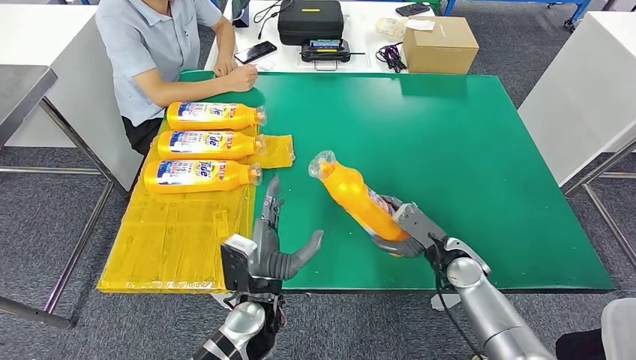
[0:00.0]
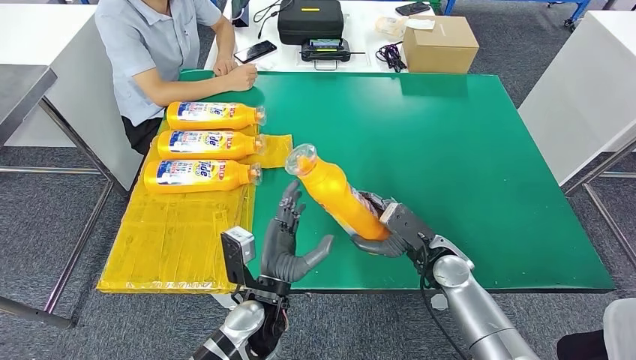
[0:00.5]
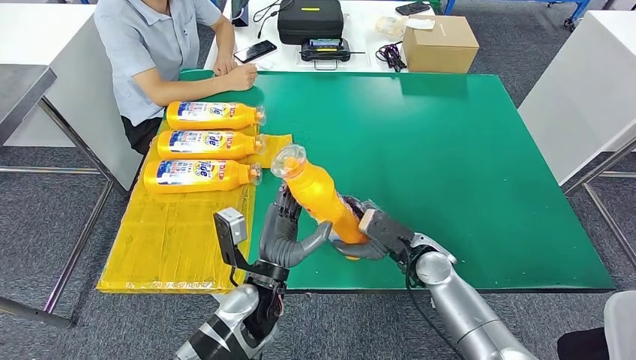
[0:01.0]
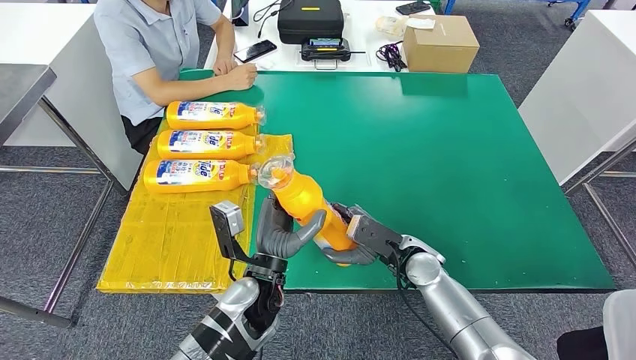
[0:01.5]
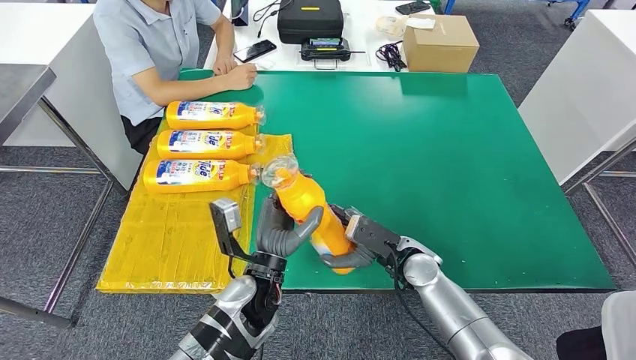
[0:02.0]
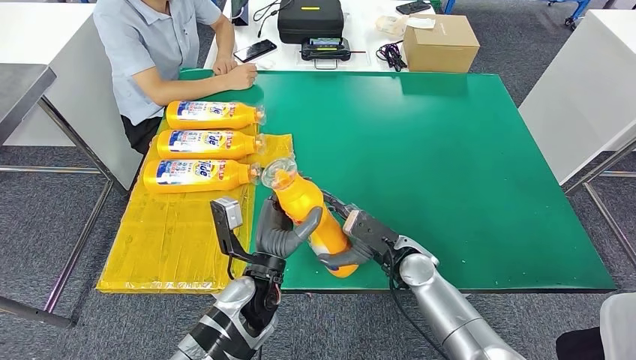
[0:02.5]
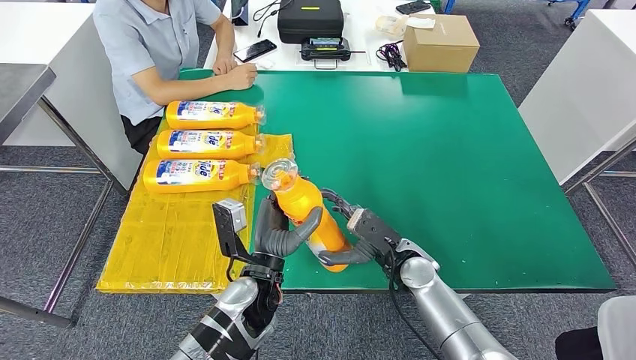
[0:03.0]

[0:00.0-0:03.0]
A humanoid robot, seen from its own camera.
Step, 0:00.0 to 0:02.0: Pick up the fast-moving consumer goods bottle from the table.
Step, 0:02.5 to 0:03.0: Flip the fast-moving consumer goods bottle to the front side.
0:00.0 to 0:01.5: The right hand heads to the left, covering about 10 cm.
0:01.5 to 0:03.0: The hands stay close to where they were, moving slightly.

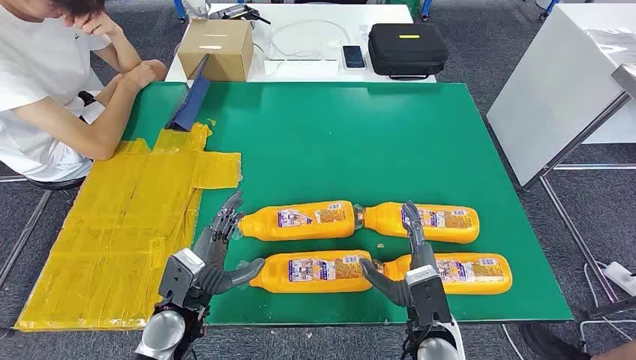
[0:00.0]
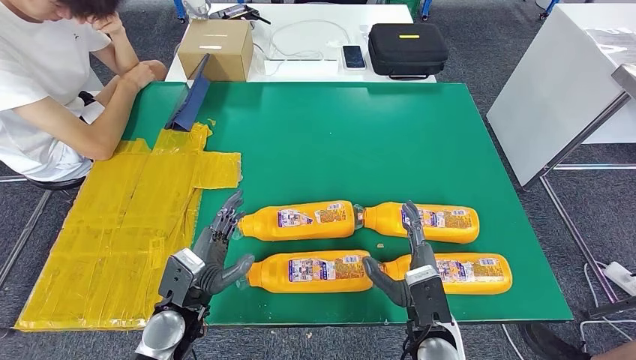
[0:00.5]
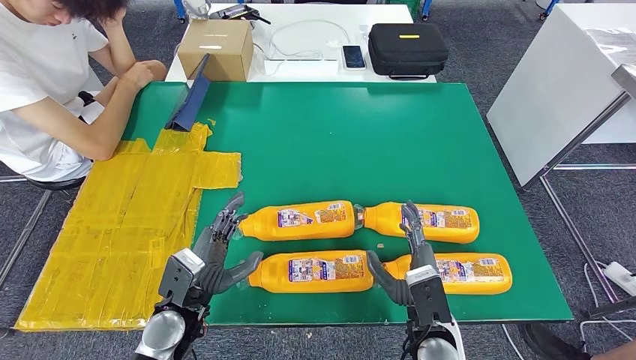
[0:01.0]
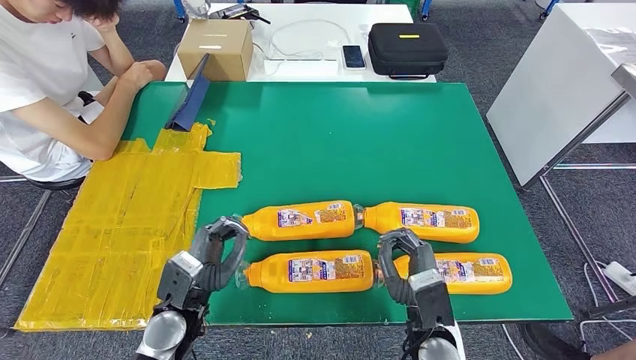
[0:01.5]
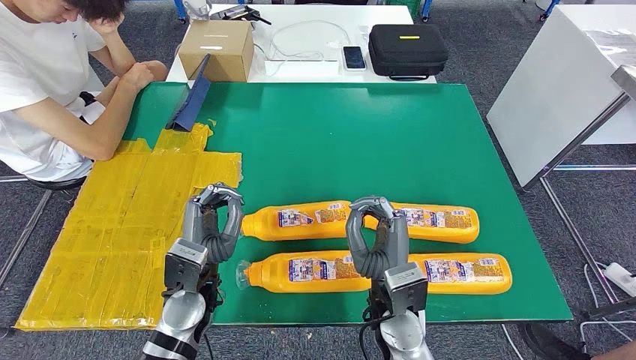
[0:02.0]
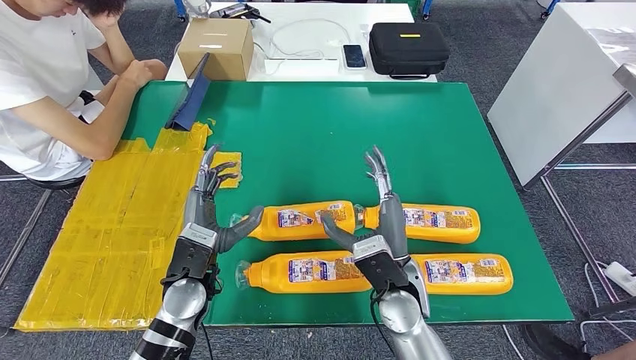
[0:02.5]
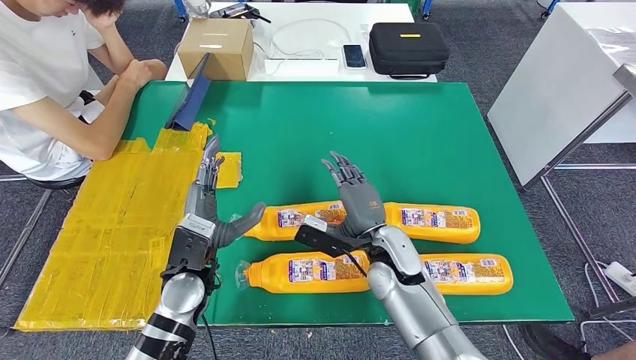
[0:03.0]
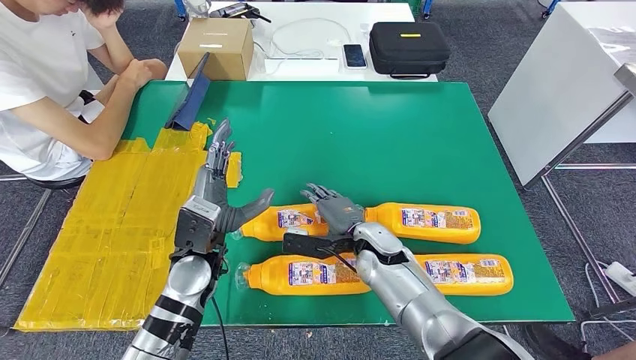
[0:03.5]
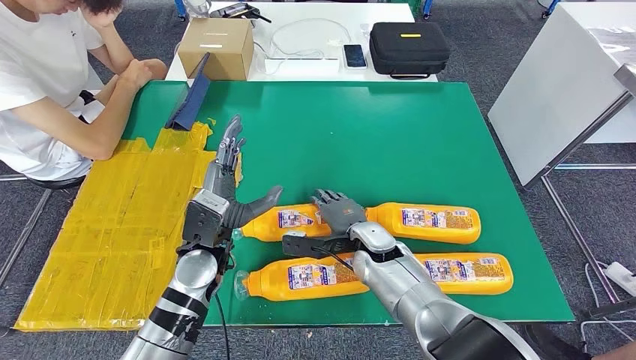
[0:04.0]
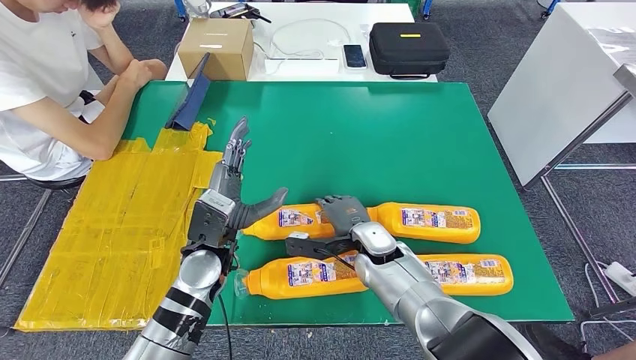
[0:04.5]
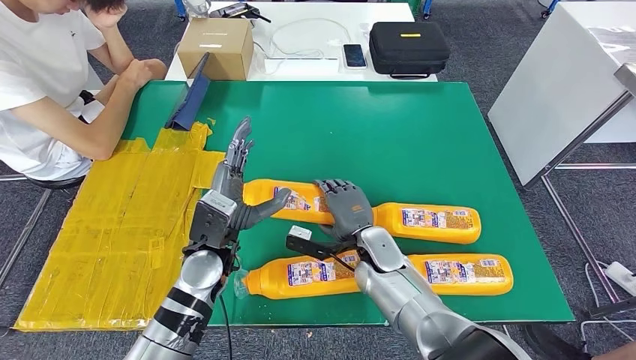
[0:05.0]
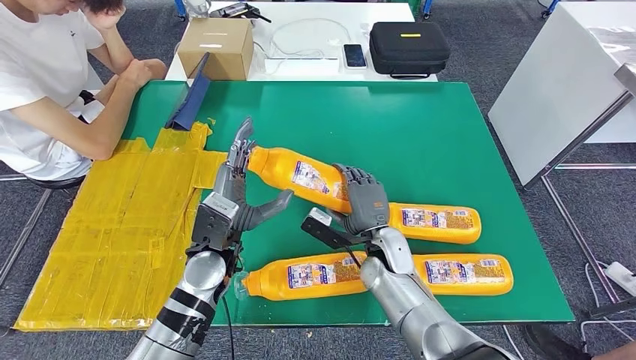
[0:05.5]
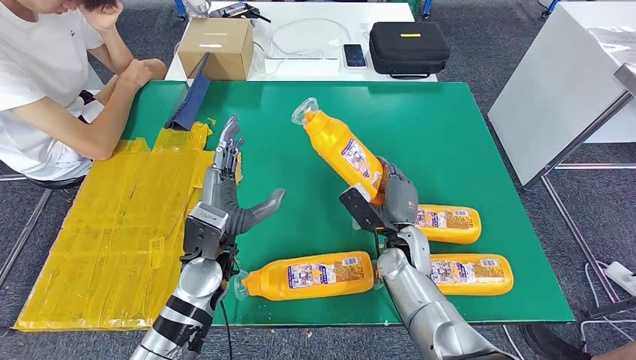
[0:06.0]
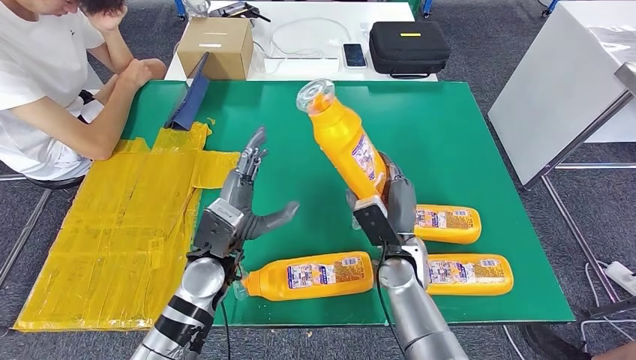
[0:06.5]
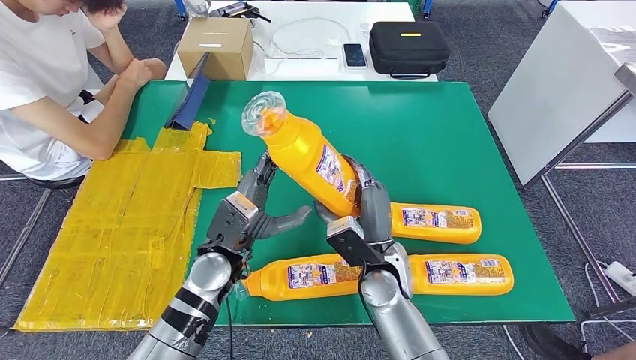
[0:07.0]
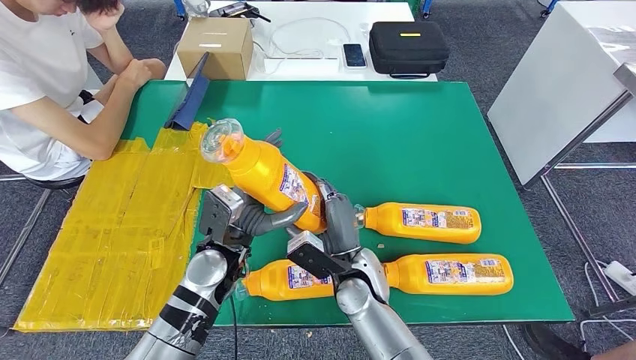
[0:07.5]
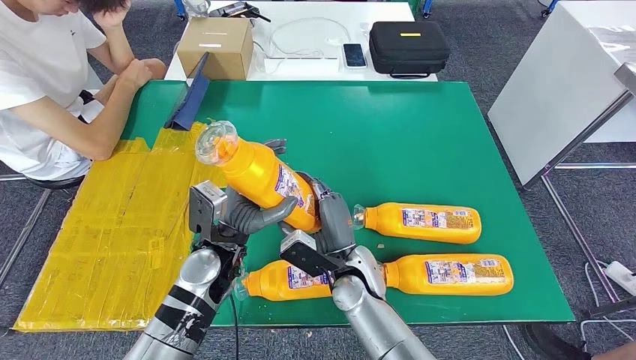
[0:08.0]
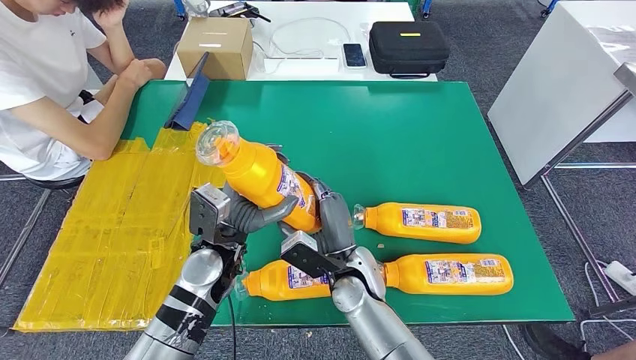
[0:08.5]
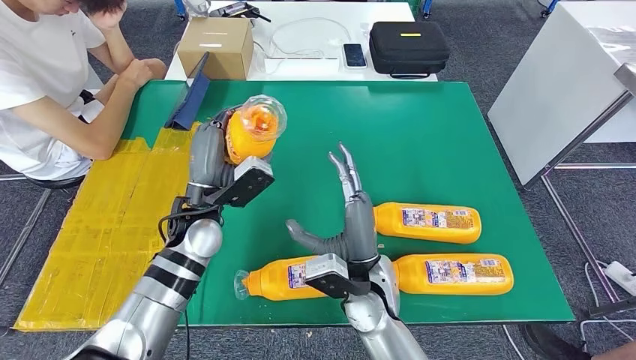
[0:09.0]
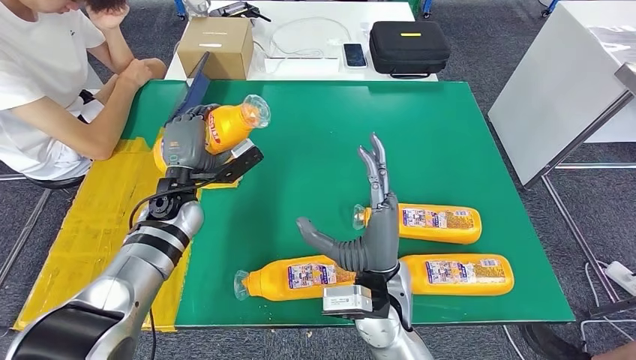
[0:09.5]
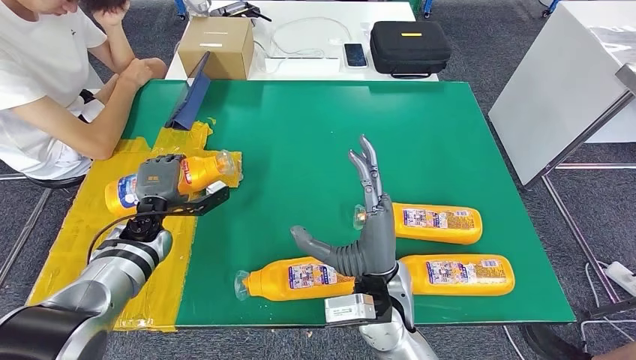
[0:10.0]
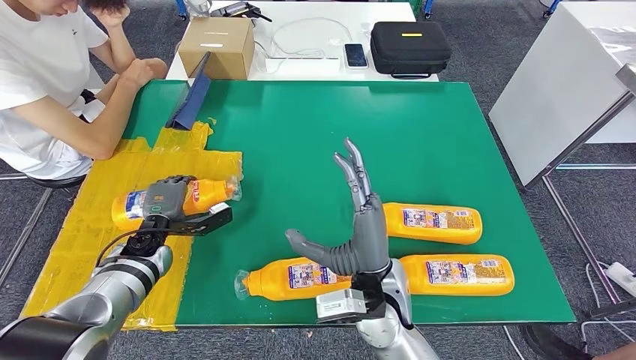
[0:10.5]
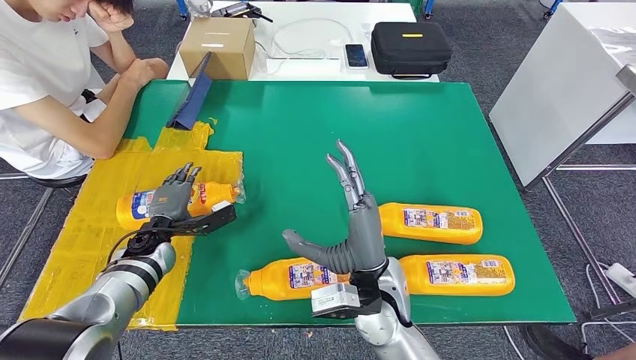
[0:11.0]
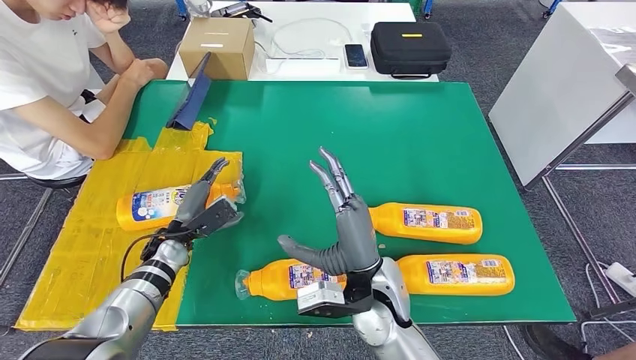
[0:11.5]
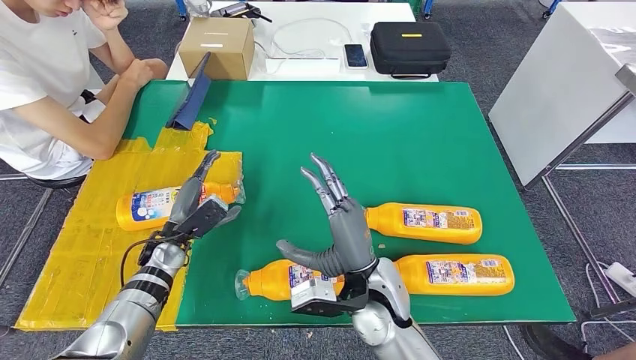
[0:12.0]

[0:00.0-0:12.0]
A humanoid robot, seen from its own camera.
Step, 0:00.0 to 0:07.0: Take the fast-moving consumer goods bottle from the table.
0:02.0 to 0:04.0: The right hand goes roughly 10 cm forward. The left hand moves about 5 cm.
0:04.0 to 0:06.0: The right hand is displaced to the right by roughly 5 cm.
0:06.0 to 0:08.0: The right hand moves to the left and backward, some 10 cm.
0:08.0 to 0:10.0: The left hand travels to the left and forward by roughly 20 cm, while the right hand travels upward and backward by some 10 cm.
0:10.0 to 0:12.0: The left hand ends up some 5 cm from where it was.

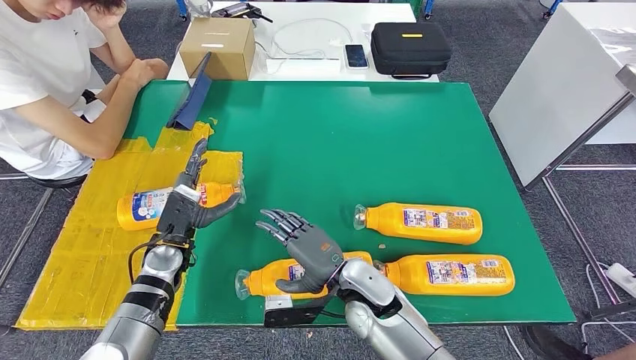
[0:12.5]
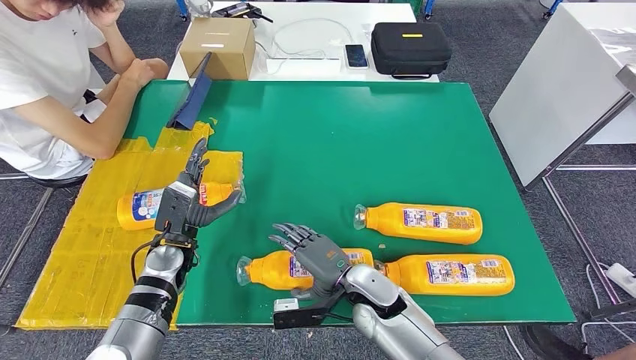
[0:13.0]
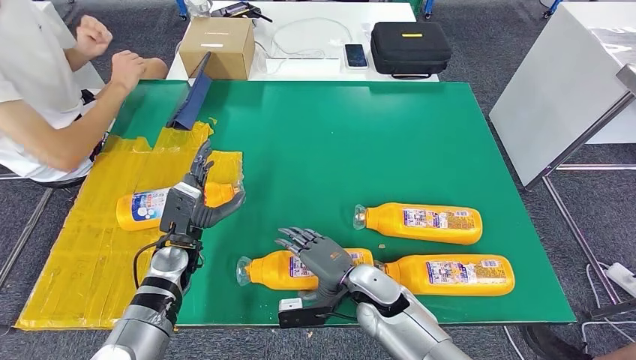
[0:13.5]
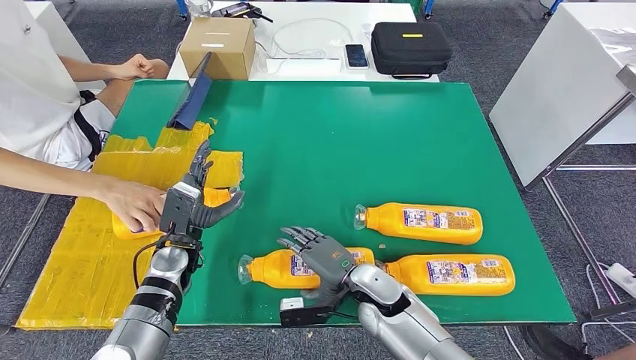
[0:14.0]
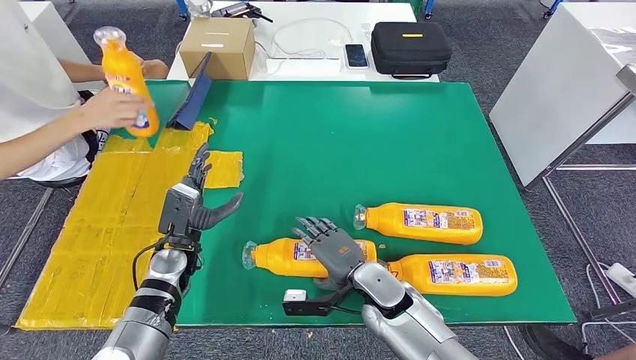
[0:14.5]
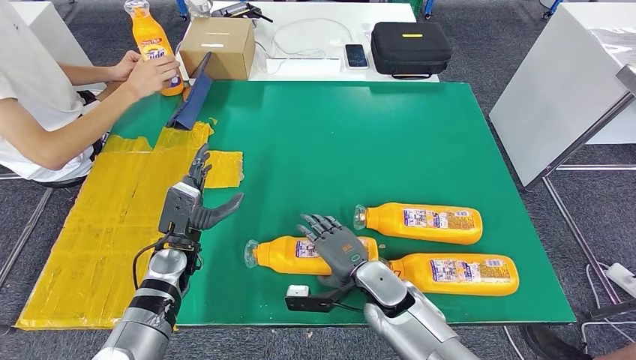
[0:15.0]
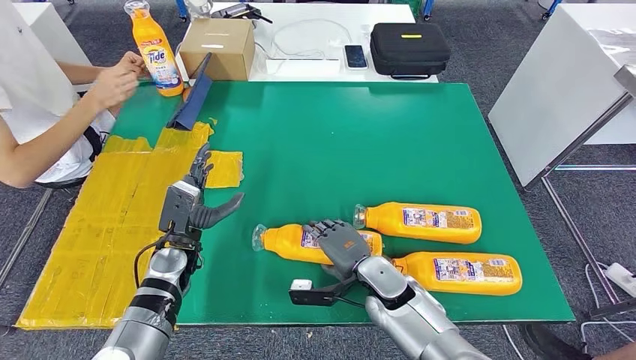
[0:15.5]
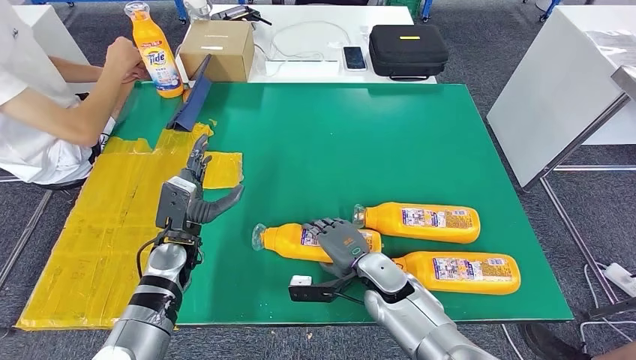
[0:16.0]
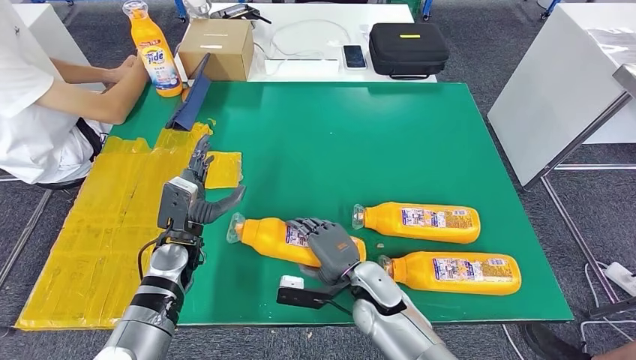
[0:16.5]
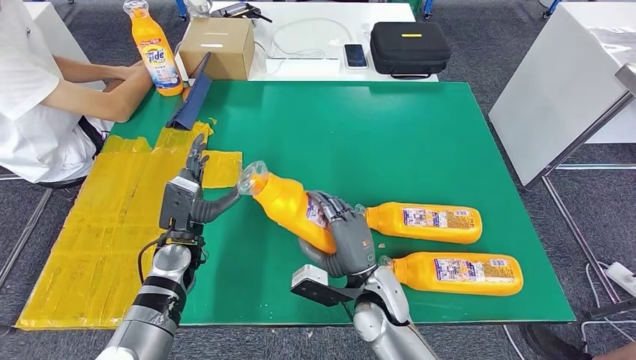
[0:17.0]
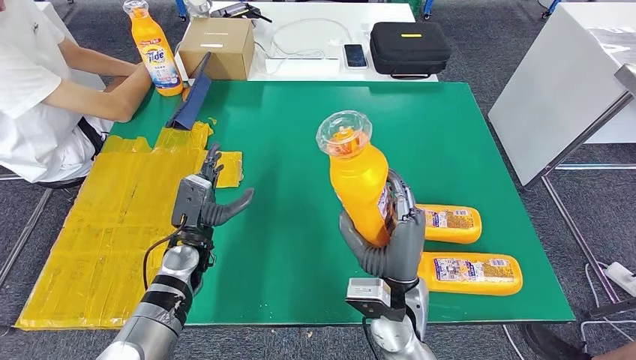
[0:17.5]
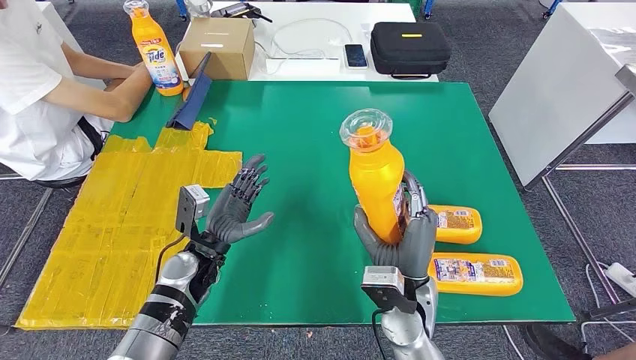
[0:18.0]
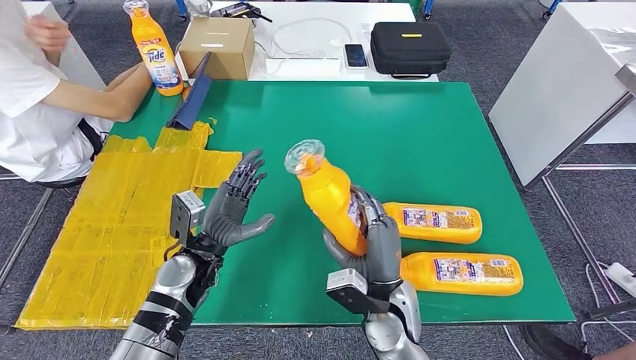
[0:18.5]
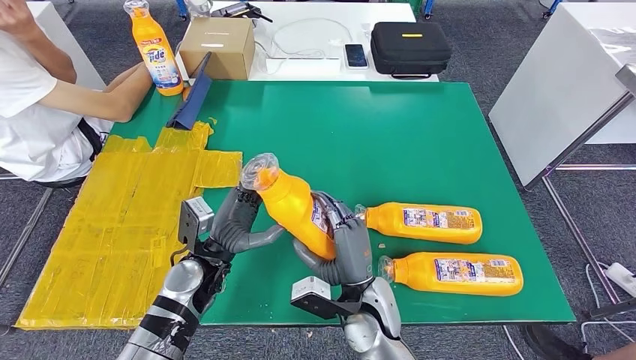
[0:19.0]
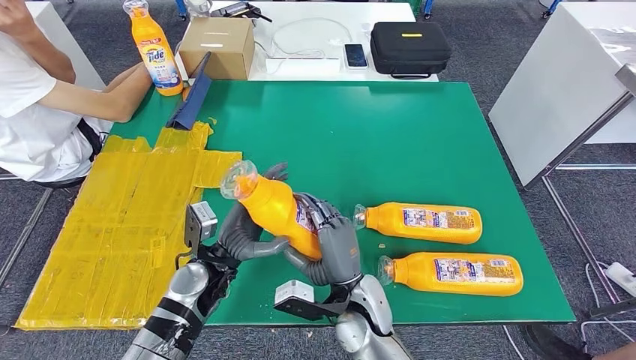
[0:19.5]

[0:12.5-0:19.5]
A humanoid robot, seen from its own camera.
Step, 0:14.0 to 0:18.5: Pick up the fast-moving consumer goods bottle from the table.
0:12.5 to 0:14.5: The right hand ends up approximately 5 cm from where it was.
0:17.5 to 0:19.5: The right hand moves to the left, roughly 5 cm. The left hand shifts some 5 cm to the right.
